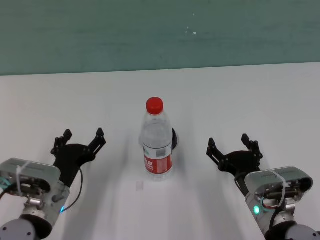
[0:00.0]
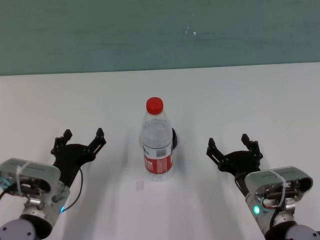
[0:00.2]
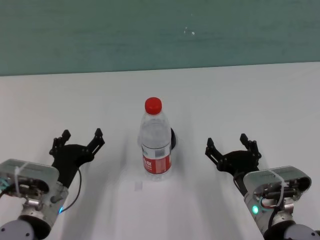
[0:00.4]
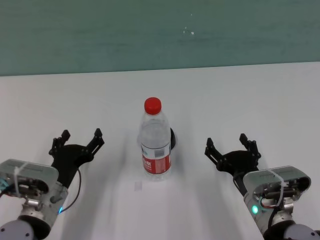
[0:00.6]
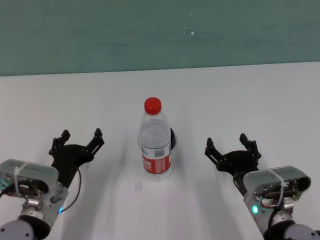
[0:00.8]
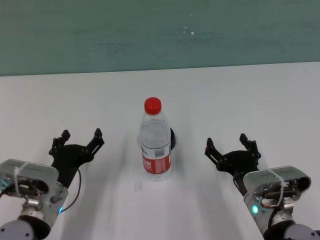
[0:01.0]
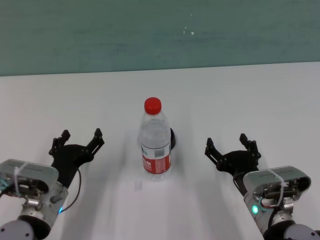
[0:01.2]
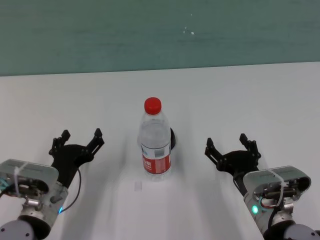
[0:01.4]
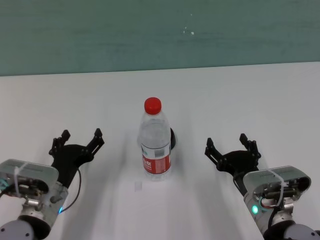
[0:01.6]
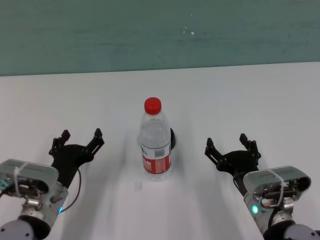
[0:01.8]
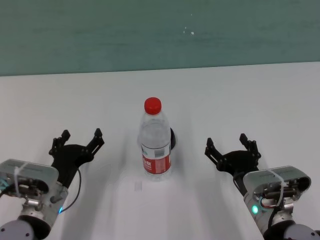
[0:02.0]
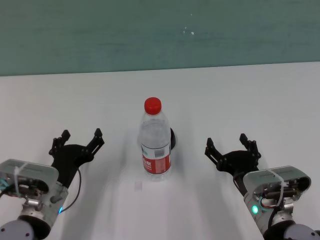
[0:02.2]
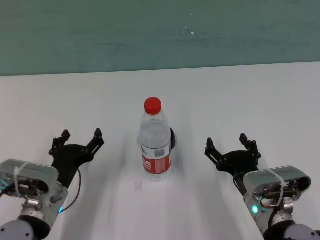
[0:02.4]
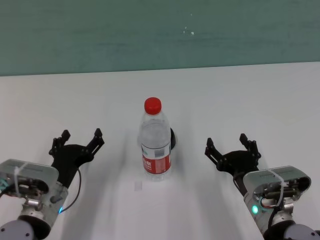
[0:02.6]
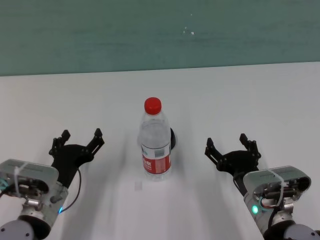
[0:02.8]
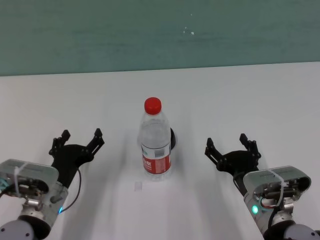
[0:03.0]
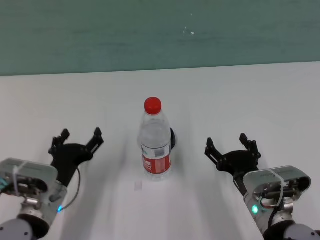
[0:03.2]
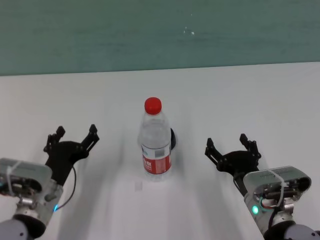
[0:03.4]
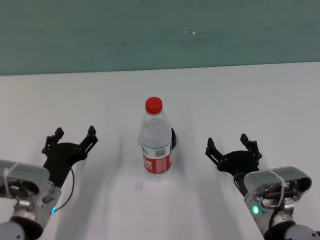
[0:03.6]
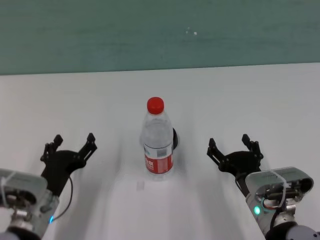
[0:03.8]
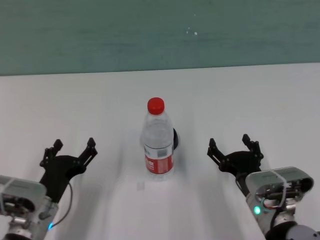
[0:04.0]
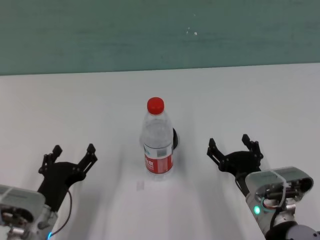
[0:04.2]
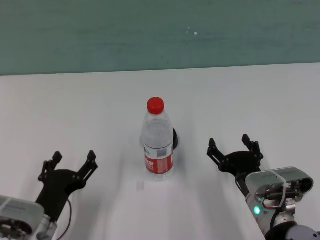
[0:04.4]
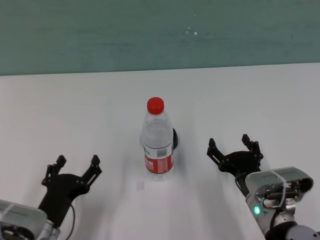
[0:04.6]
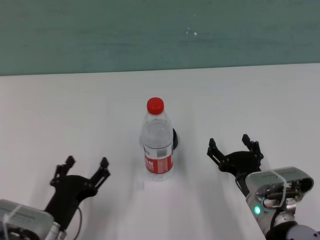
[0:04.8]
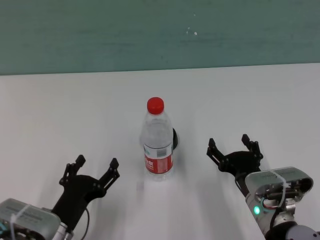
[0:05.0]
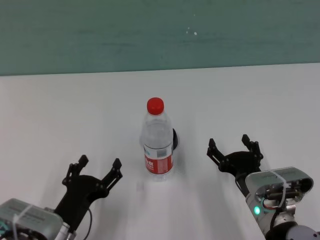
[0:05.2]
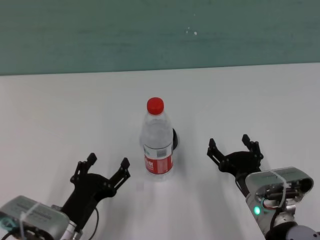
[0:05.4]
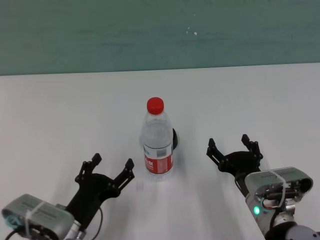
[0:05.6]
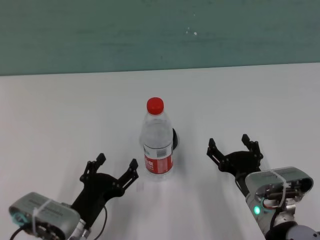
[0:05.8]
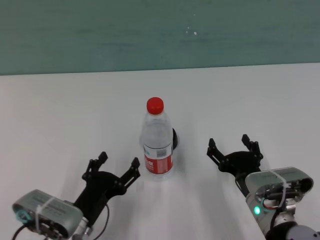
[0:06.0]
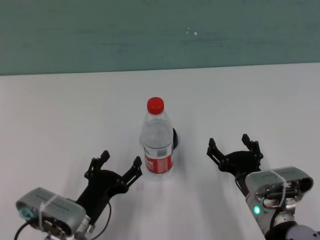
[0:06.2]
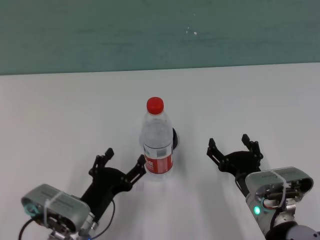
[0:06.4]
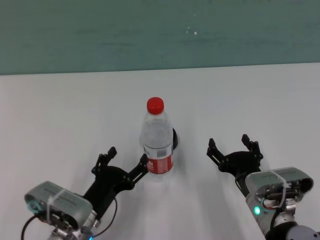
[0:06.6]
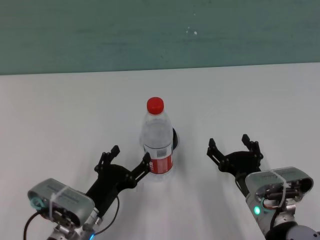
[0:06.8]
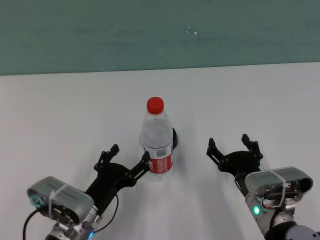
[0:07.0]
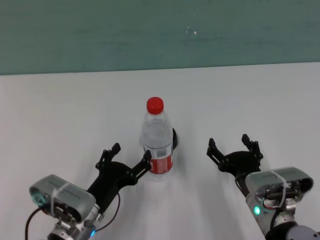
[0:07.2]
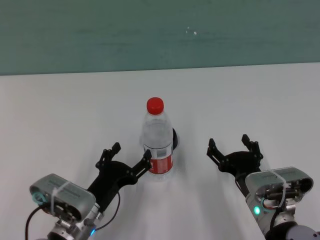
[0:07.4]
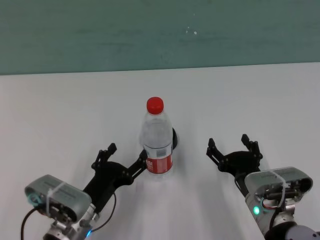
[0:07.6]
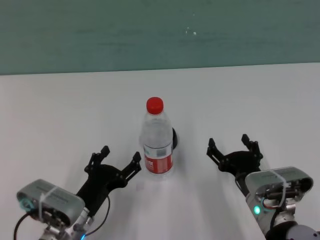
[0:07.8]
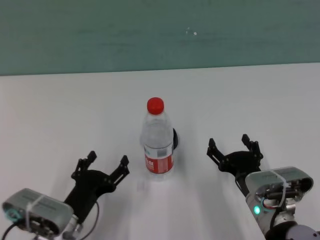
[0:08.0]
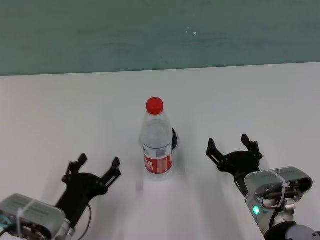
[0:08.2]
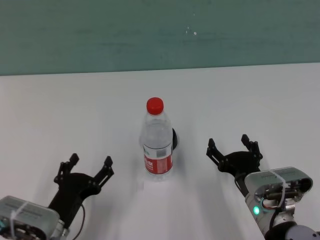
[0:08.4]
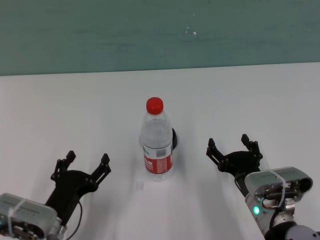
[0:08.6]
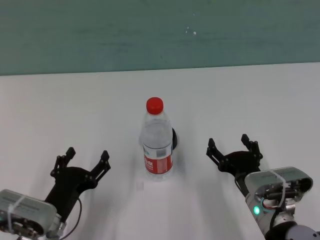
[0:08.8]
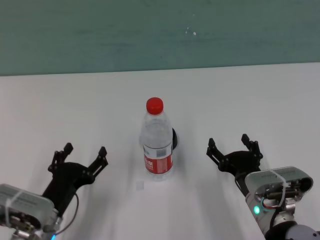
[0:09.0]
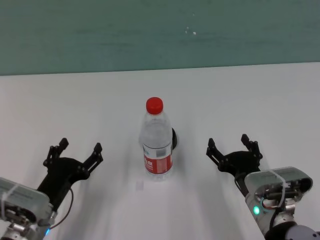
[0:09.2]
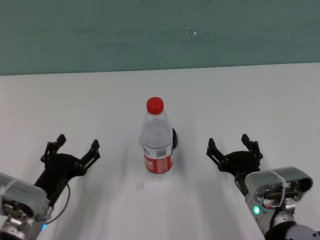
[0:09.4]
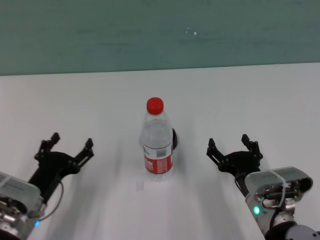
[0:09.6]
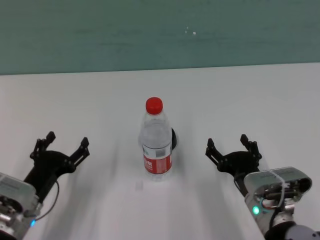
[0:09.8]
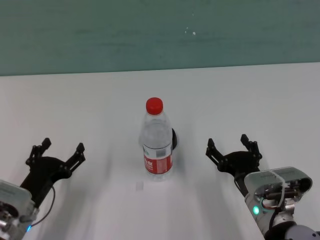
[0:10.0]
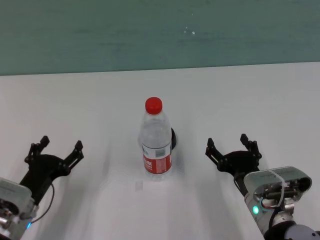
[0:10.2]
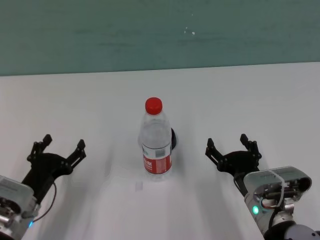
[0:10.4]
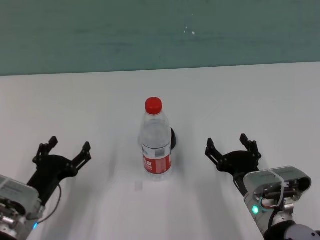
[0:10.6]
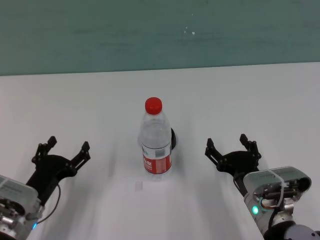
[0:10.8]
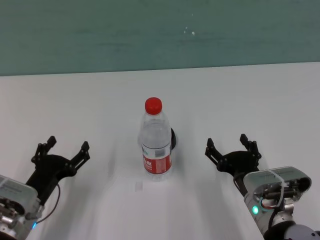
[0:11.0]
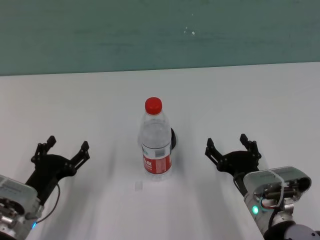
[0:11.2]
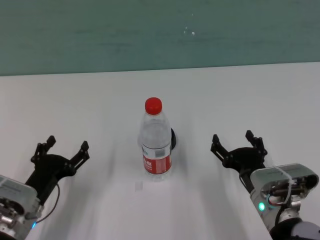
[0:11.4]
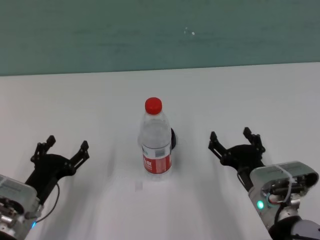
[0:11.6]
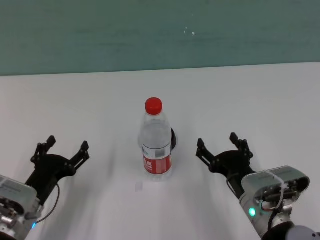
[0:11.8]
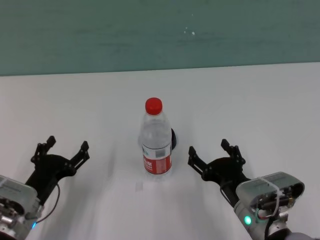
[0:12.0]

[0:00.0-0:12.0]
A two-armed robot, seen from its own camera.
Task of the whole recording: after removing the water bottle from the table, press the button.
Step, 0:00.0 to 0:07.8: Touch the bottle with left gripper.

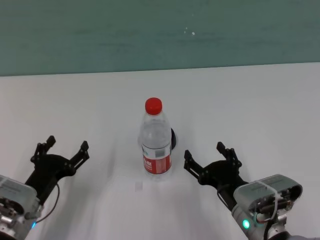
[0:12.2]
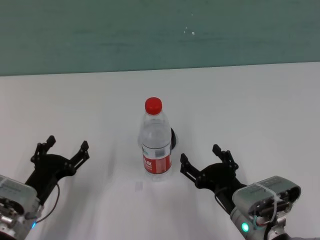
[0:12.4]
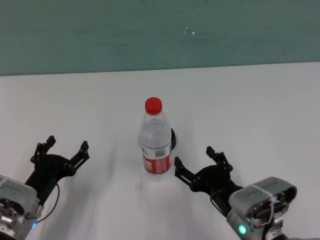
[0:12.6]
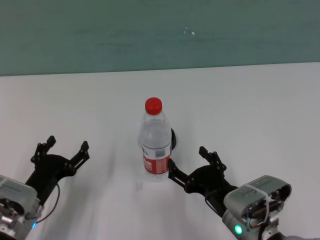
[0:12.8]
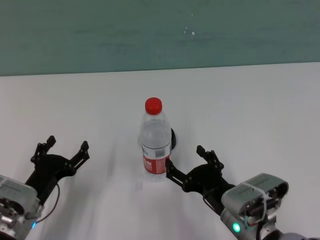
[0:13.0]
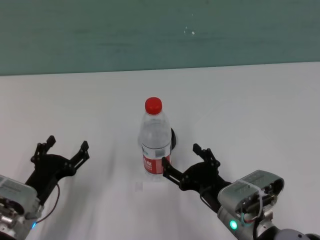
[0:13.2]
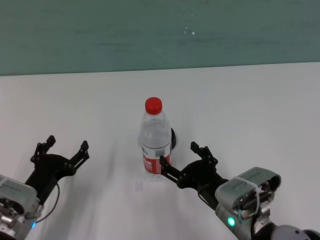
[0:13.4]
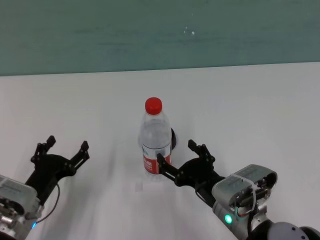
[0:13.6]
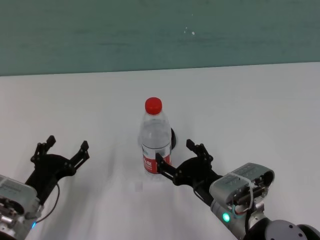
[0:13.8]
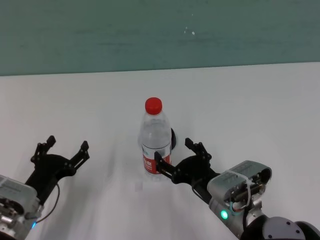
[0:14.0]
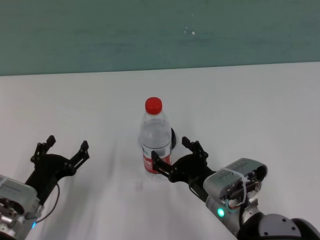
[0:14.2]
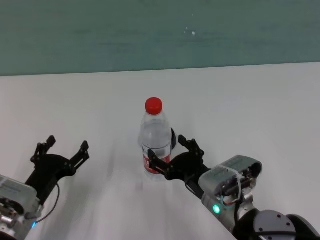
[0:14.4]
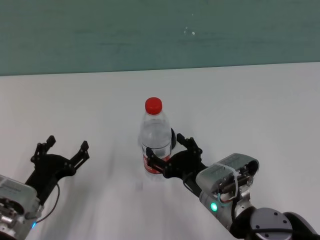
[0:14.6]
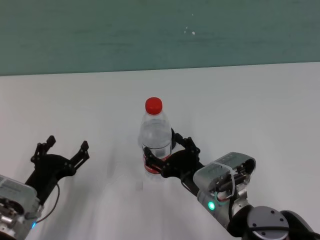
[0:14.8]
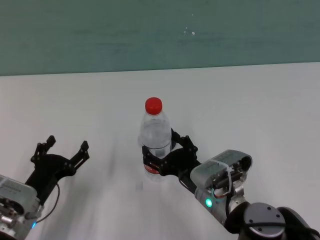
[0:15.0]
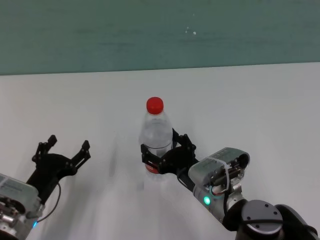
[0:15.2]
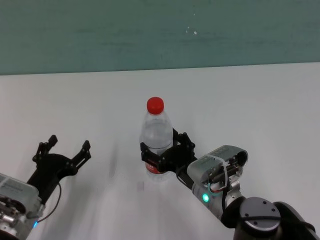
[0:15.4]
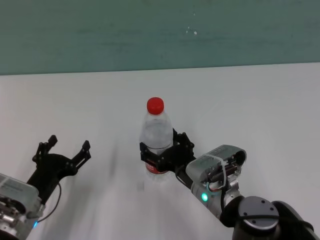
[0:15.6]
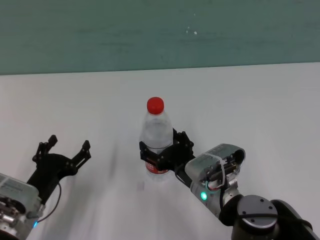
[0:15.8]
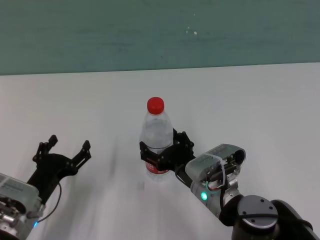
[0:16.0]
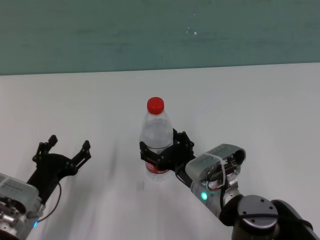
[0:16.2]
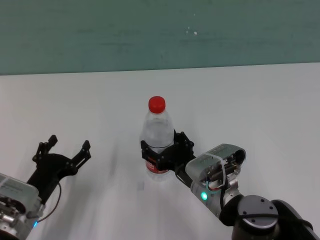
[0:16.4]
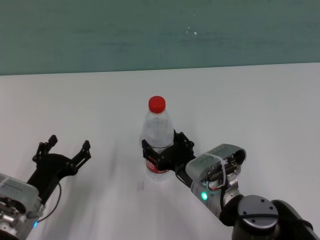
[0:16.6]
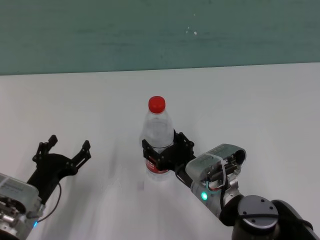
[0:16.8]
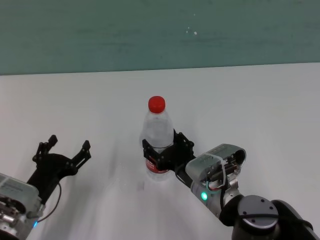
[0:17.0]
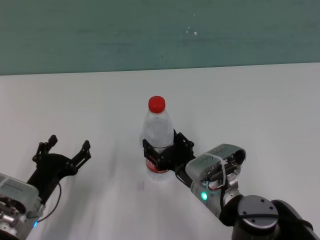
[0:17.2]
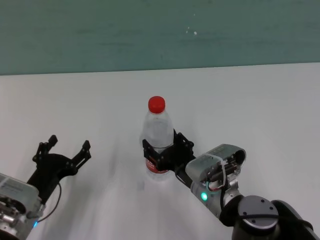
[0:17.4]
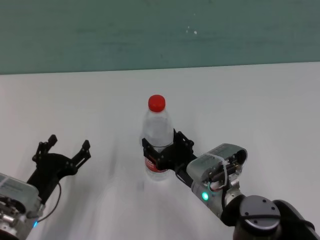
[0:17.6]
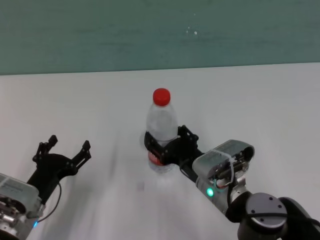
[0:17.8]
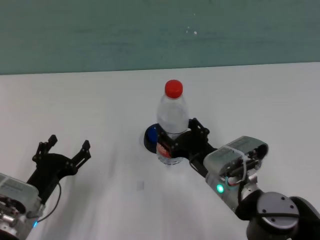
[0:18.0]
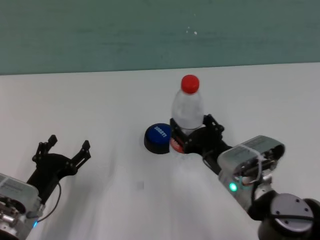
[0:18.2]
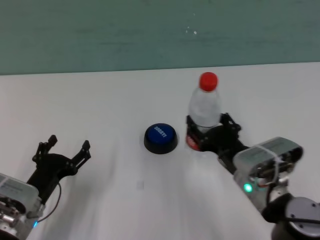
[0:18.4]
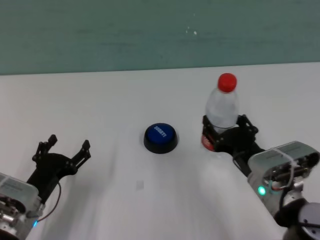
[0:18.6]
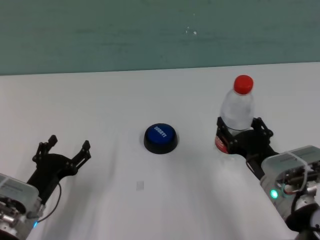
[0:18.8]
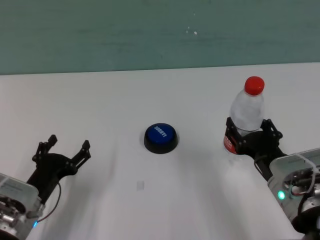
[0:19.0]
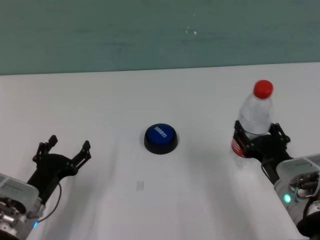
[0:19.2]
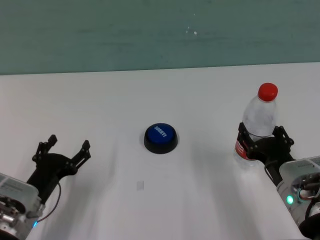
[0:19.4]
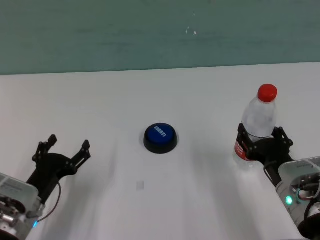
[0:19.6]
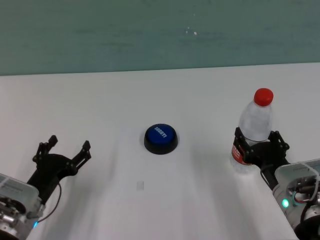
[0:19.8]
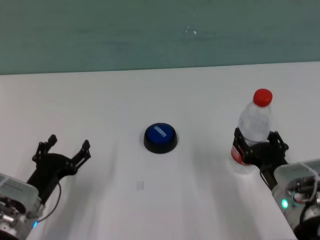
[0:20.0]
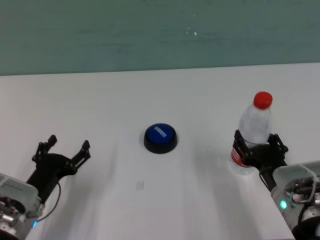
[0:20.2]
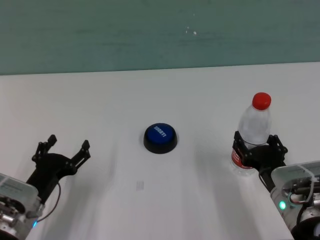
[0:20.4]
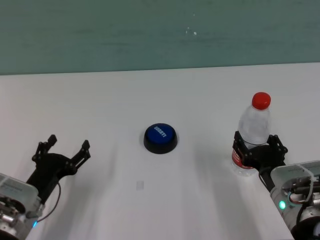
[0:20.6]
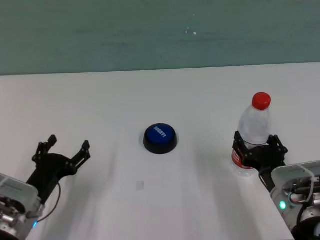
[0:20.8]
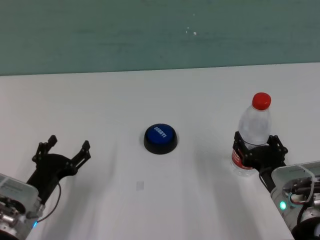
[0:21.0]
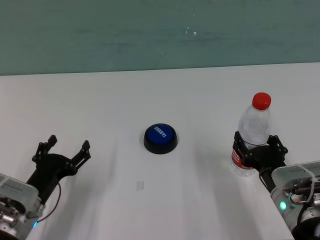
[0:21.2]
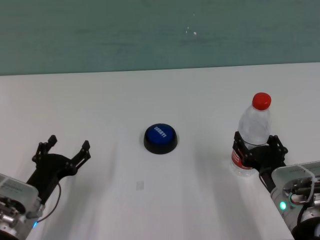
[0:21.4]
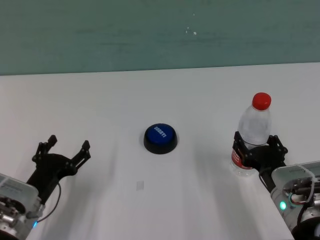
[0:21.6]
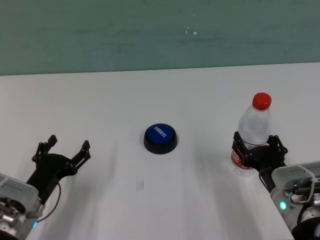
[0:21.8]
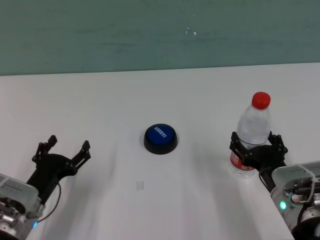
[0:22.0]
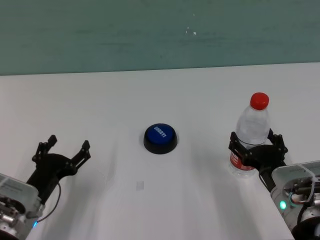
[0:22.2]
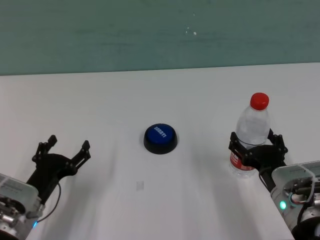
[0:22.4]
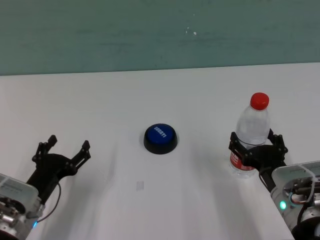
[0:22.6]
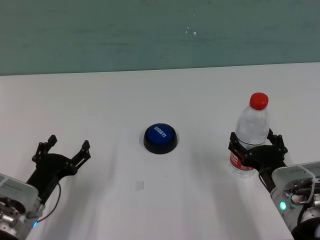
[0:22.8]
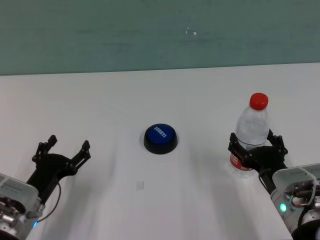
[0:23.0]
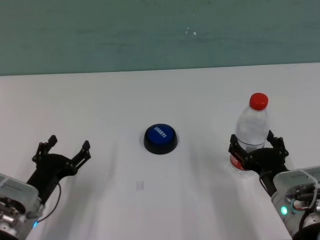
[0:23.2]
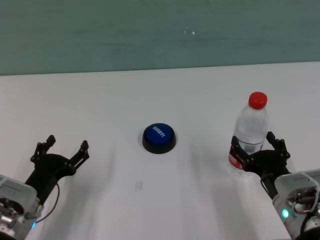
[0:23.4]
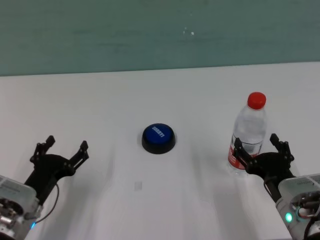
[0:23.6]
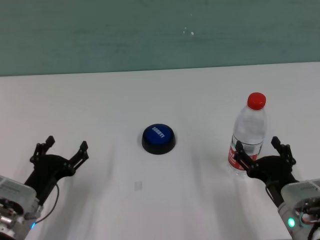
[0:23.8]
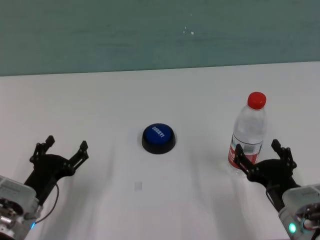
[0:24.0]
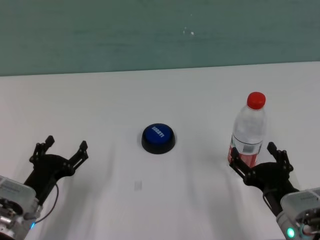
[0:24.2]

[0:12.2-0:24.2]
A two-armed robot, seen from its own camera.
Task of the whole recording: after removing the water bottle from the table, press the button.
Step, 0:12.2 to 0:22.0: Move the bottle away with right gripper.
